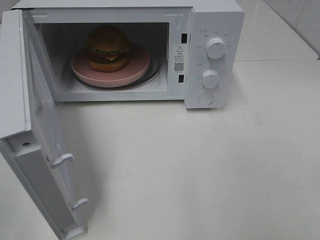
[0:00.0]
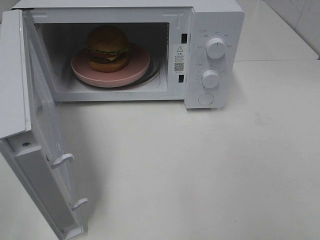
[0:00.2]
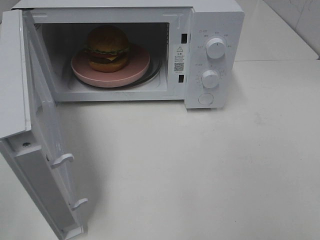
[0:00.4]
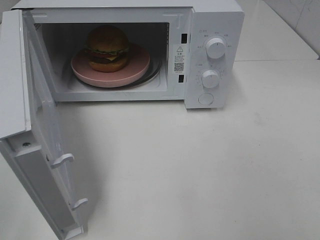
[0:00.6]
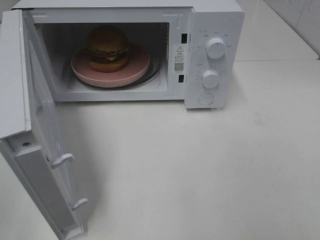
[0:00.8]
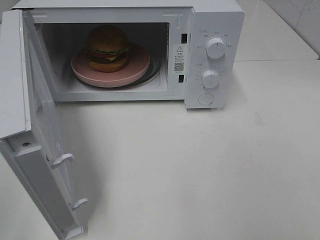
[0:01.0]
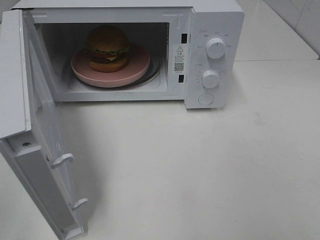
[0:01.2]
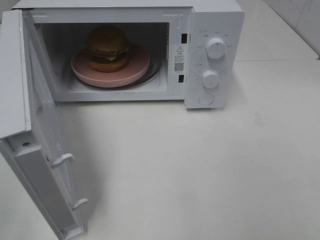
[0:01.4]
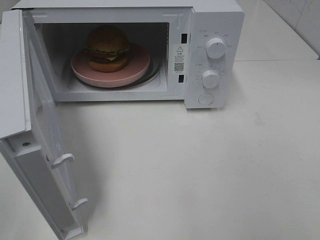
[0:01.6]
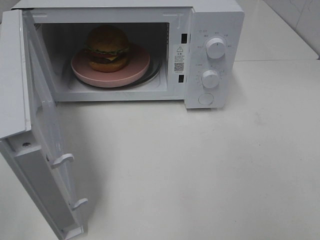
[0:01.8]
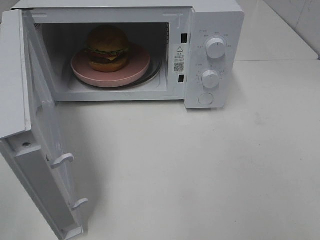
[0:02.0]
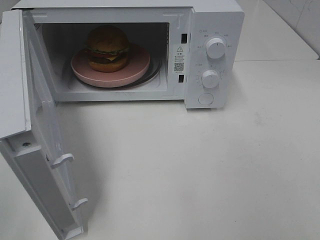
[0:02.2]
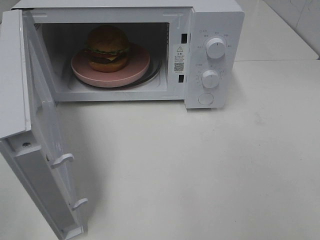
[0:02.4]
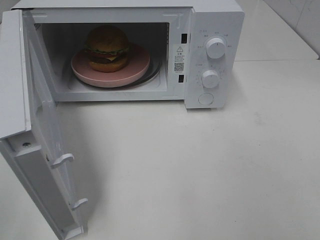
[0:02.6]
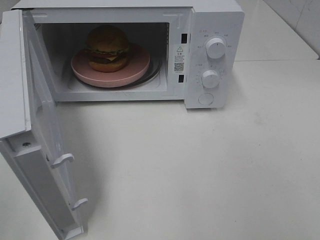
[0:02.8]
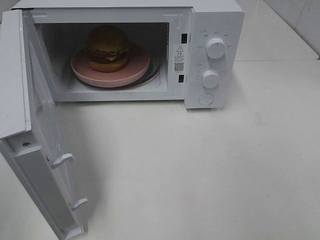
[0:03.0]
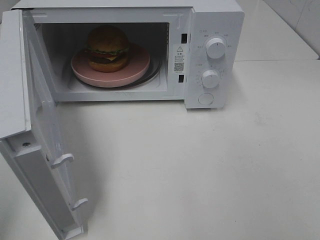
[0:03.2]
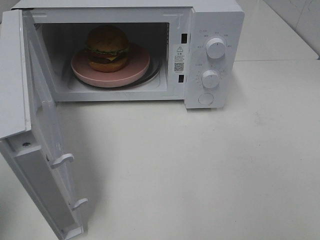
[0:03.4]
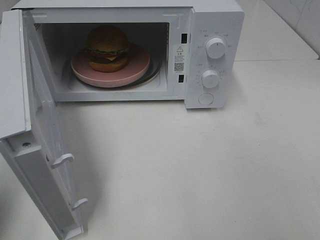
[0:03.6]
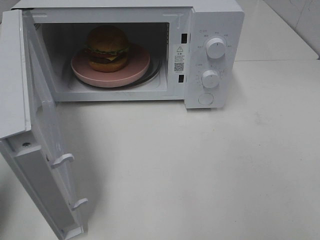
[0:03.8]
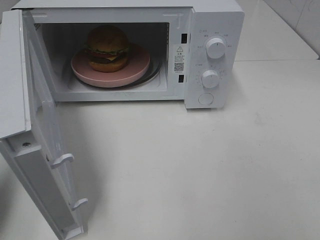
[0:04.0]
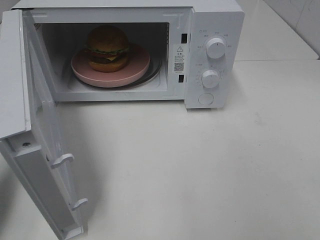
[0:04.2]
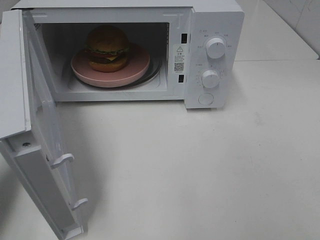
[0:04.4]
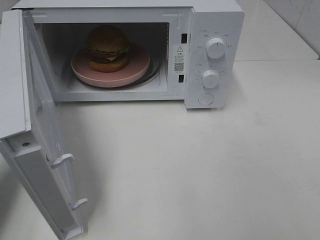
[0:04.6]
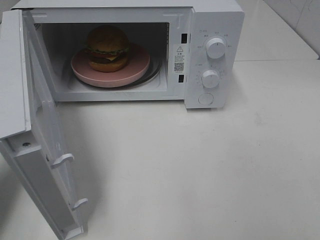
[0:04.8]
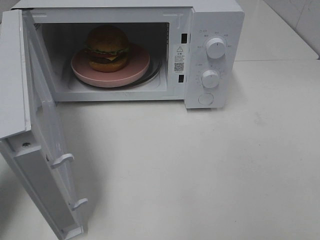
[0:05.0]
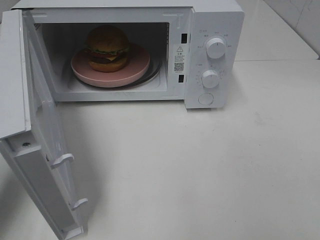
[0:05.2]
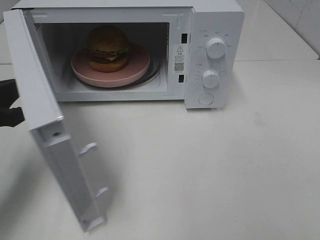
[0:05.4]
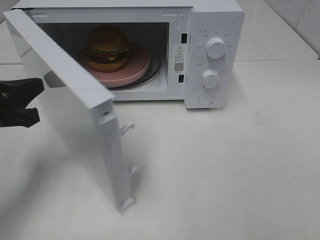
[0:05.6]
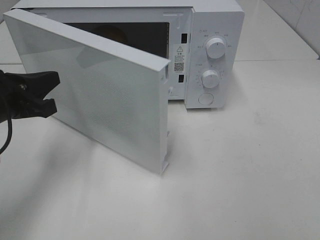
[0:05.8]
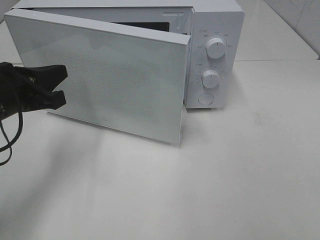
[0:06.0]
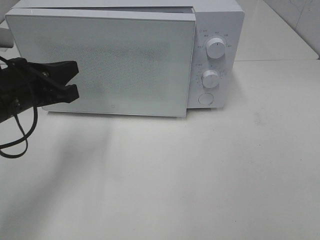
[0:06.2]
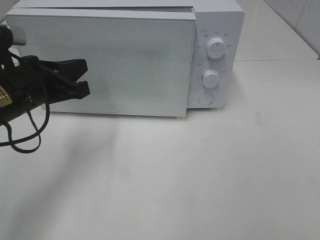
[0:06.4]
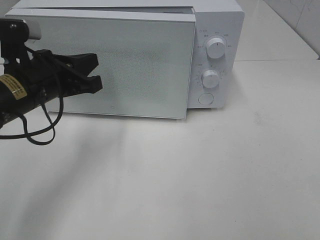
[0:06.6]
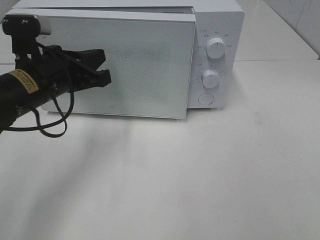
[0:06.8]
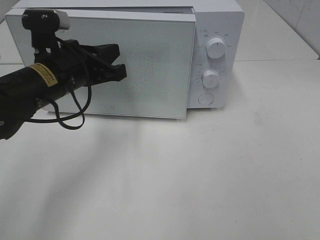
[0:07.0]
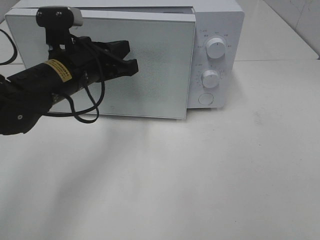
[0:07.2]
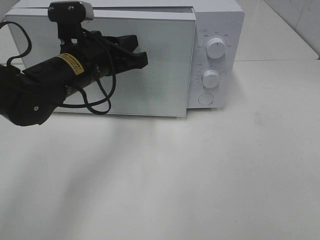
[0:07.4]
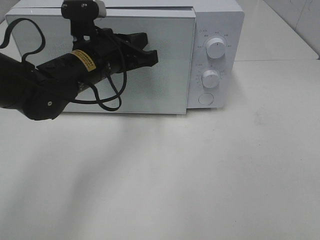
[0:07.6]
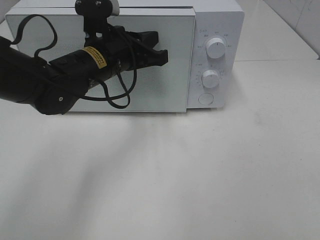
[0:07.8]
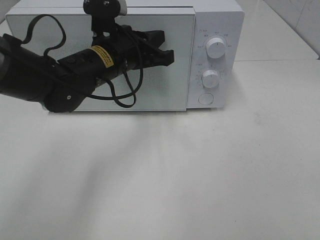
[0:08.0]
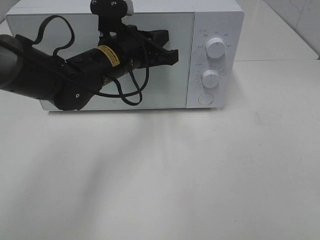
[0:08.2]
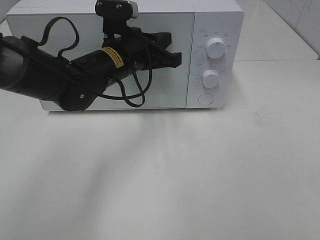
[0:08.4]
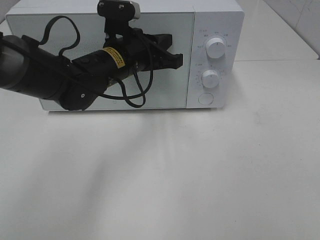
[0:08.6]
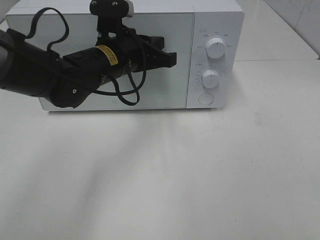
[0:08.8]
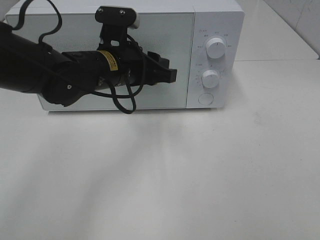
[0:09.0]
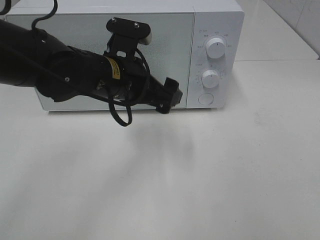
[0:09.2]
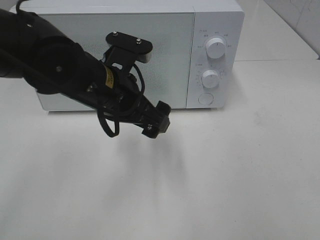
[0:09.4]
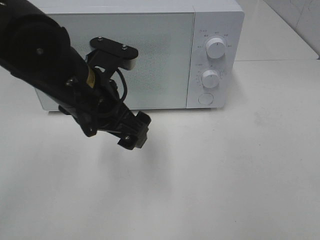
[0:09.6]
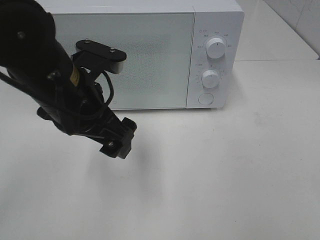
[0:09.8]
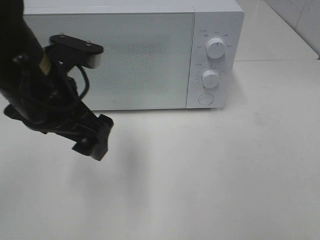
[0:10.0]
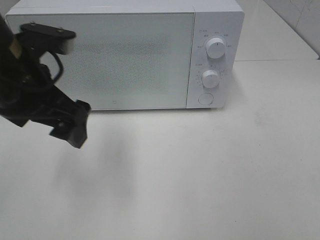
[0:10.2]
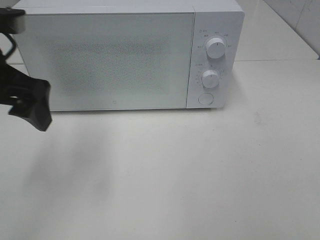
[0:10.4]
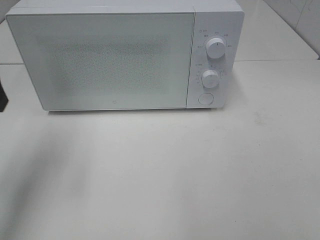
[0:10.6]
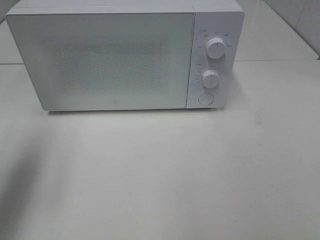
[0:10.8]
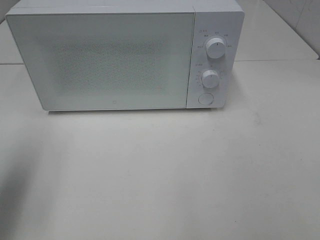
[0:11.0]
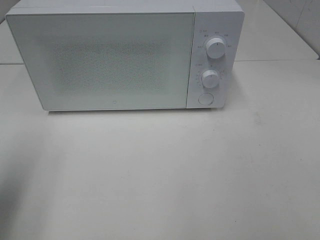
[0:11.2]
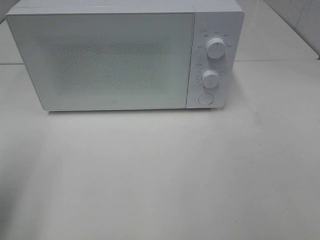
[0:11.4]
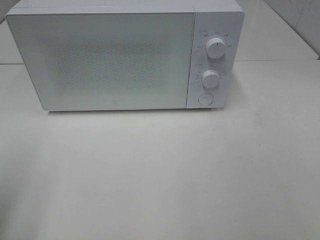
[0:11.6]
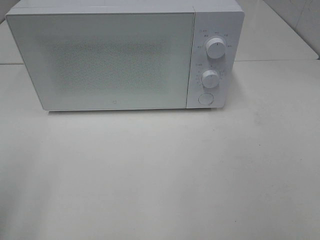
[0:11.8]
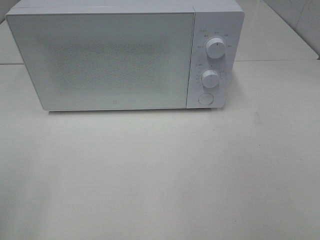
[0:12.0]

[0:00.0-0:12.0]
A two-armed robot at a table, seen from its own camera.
Task of the whole recording: Heat the burger.
Step, 0:00.0 to 0:08.8: Left hand: close the microwave door.
0:03.0 to 0:04.4: The left gripper shifts about 15 cm forward and downward, and closes its fingers.
0:04.4 to 0:06.0: The left gripper goes roughly 15 cm to the right, forward and downward.
0:06.0 to 0:07.6: The left gripper goes some 15 cm to the right and forward.
0:07.6 to 0:09.0: The left gripper opens up.
0:09.0 to 0:10.4: The left gripper shifts about 20 cm to the left, upward and backward, and opens up.
0:10.4 to 0:12.0: The left gripper heads backward and to the left, covering roughly 20 cm.

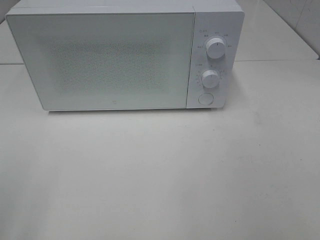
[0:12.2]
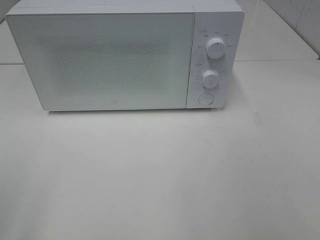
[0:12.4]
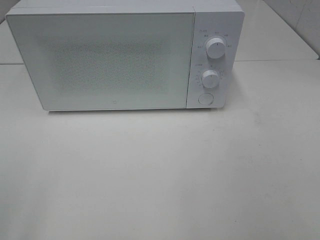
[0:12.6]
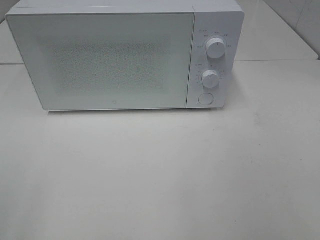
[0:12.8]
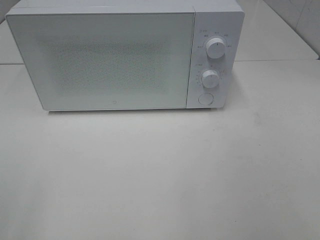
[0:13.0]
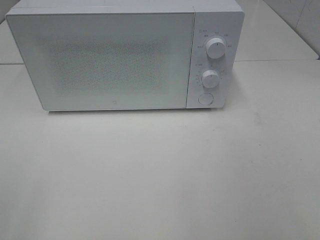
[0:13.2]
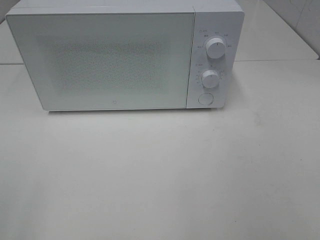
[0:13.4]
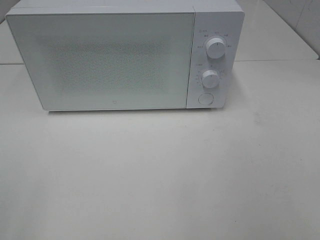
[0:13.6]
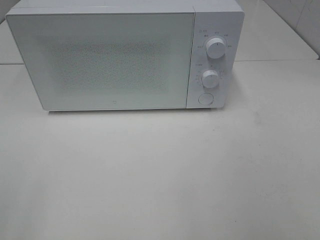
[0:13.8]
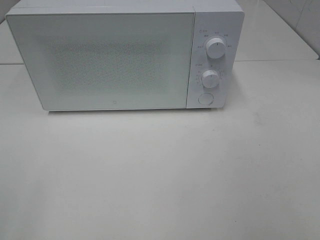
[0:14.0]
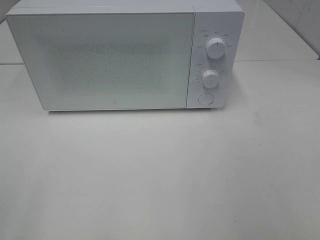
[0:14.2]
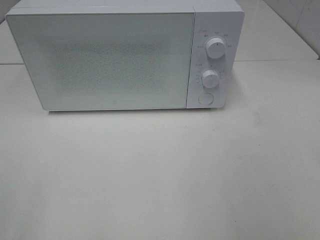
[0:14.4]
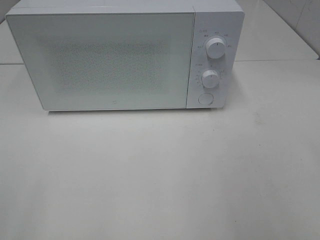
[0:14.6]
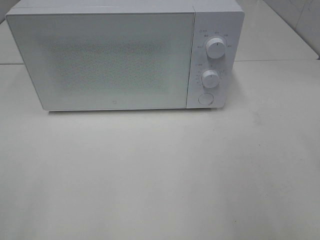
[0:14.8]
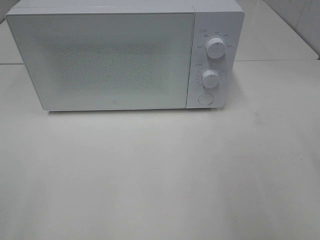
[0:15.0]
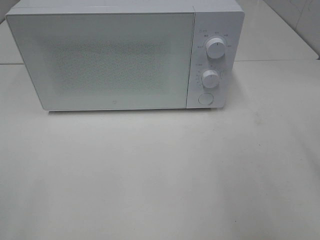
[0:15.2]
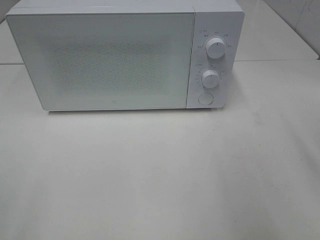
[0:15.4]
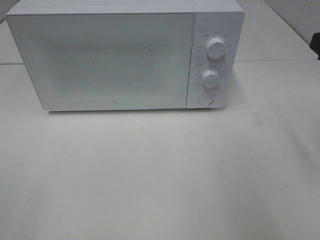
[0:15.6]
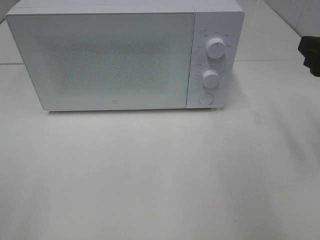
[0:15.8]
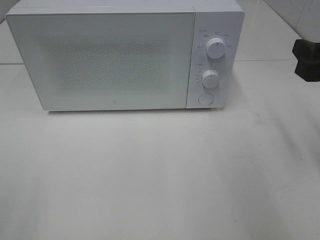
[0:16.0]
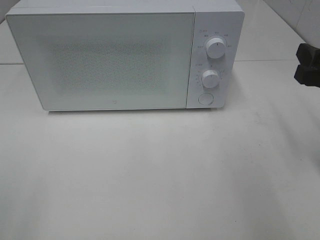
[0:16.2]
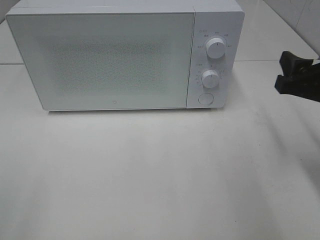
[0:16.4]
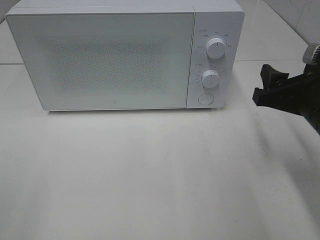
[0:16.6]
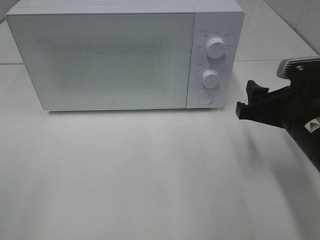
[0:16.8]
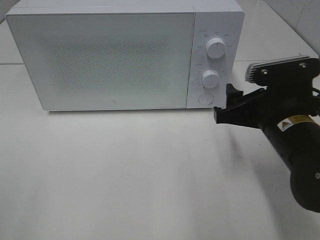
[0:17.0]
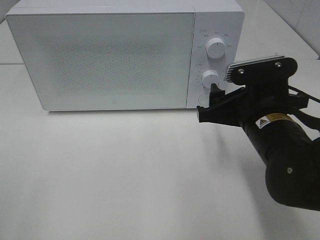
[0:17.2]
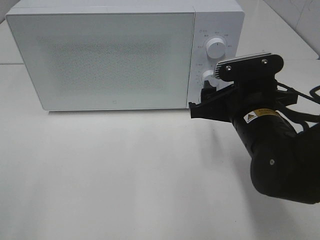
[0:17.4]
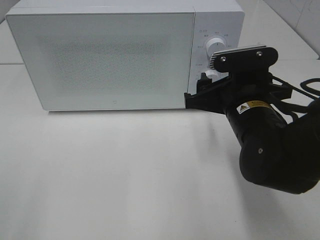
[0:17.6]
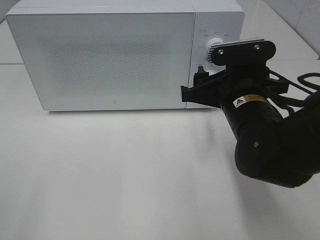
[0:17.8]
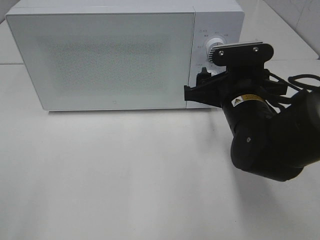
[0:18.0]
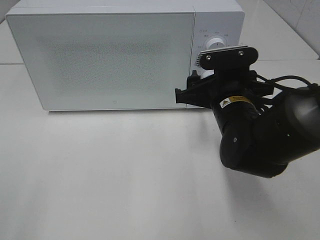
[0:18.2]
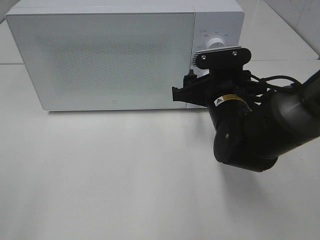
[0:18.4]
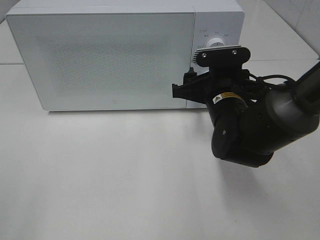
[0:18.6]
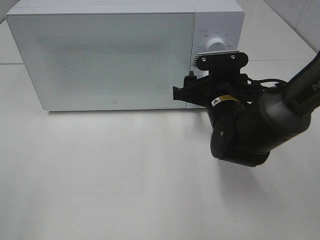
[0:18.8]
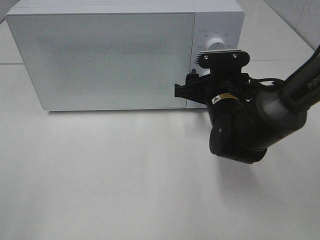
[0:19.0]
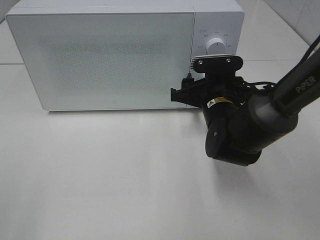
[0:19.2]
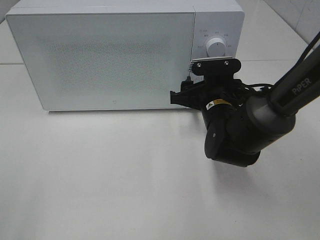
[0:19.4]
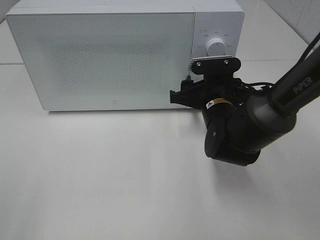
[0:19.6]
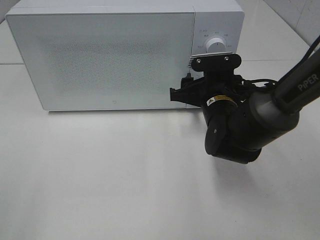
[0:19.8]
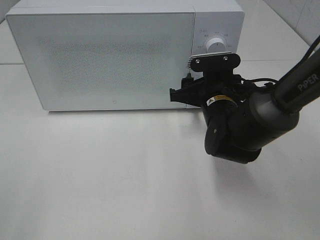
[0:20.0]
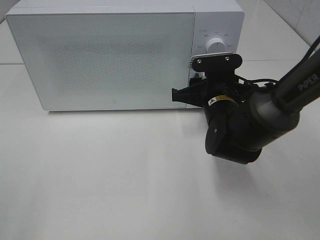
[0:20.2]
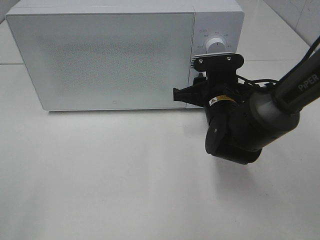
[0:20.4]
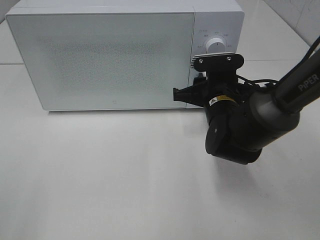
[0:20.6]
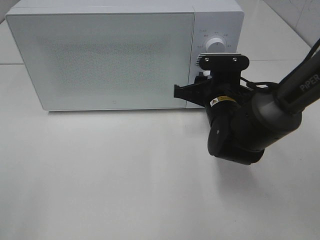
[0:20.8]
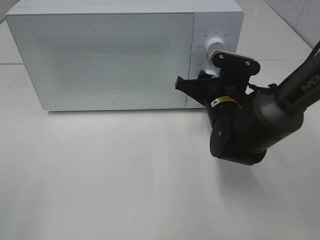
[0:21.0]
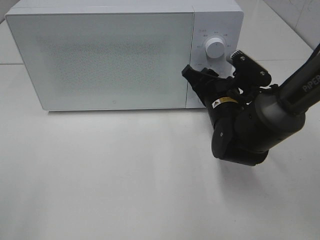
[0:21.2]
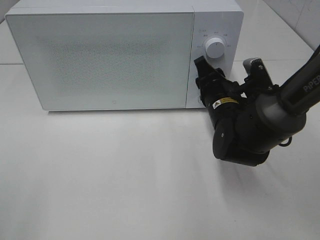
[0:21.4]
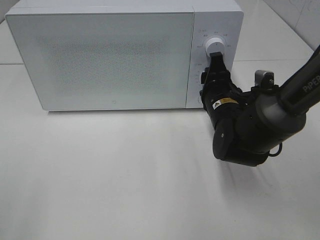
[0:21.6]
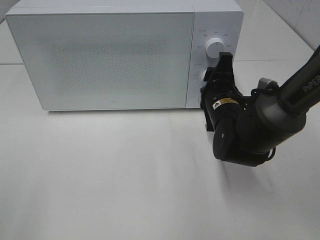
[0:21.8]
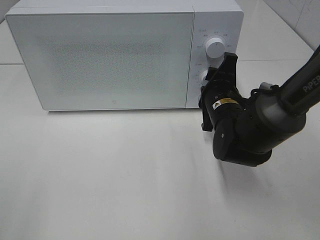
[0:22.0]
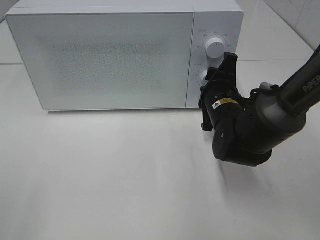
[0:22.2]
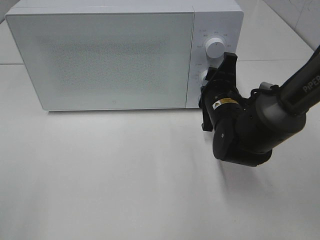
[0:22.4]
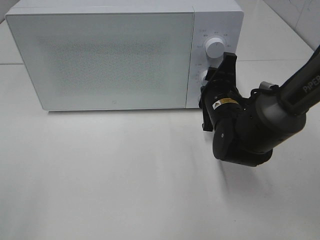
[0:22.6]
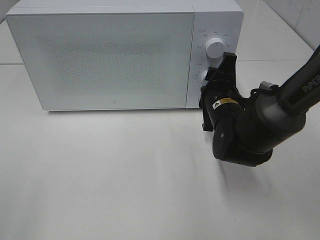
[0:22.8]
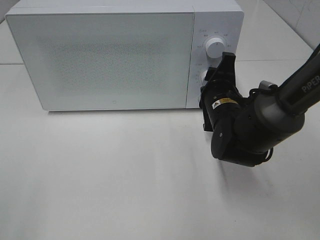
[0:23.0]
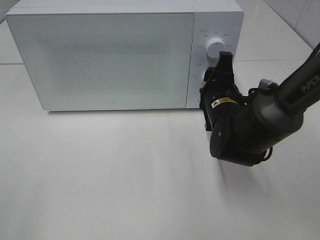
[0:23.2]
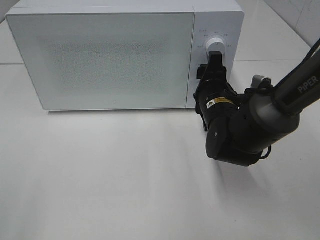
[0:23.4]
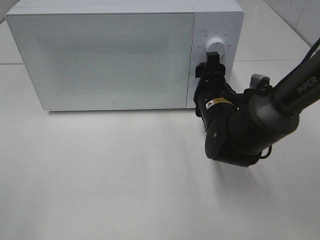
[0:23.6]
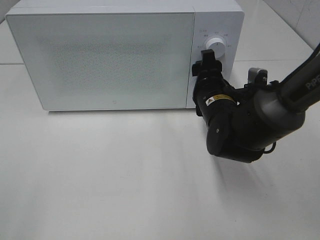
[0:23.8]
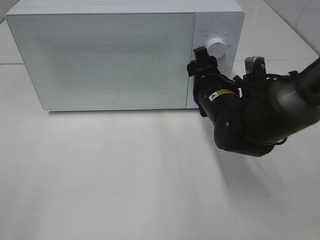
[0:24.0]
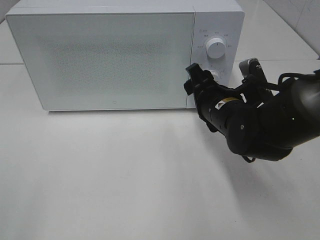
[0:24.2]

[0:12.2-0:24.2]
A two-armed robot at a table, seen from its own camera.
Task of the whole recording: Heat the burger.
Step, 0:12.2 to 0:23.4: Right hand: twist timer button.
0:15.2 to 0:16.6: The right gripper is displaced downward and forward by approximately 15 cm.
0:16.6 to 0:18.2: The right gripper goes about 15 cm to the left and forward.
0:18.2 to 0:19.8: The right gripper moves some 5 cm.
0:19.8 to 0:21.2: The right gripper closes up.
